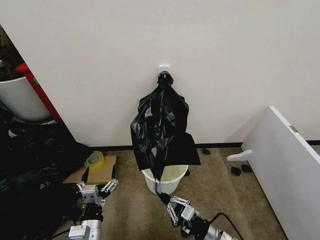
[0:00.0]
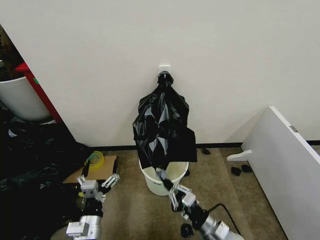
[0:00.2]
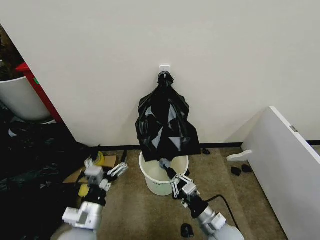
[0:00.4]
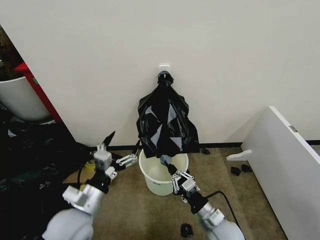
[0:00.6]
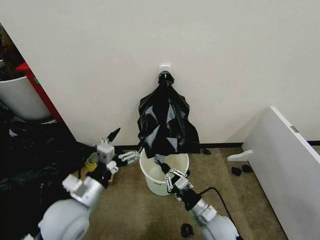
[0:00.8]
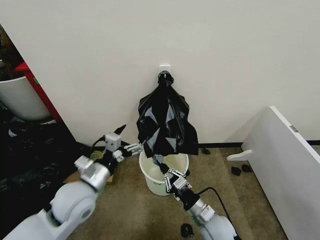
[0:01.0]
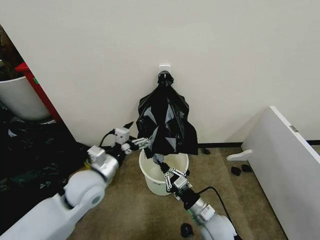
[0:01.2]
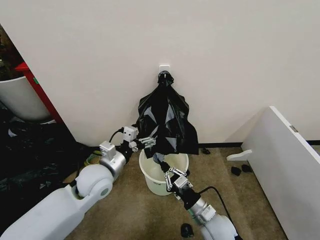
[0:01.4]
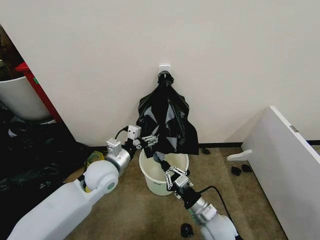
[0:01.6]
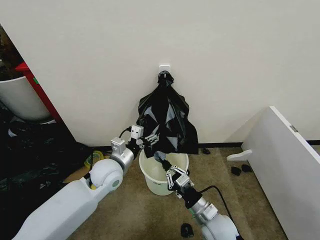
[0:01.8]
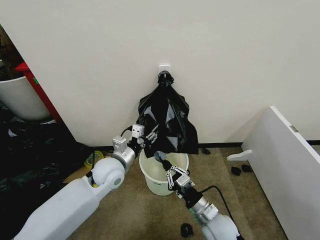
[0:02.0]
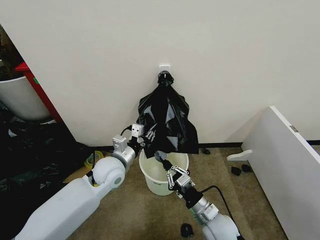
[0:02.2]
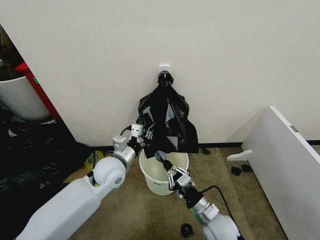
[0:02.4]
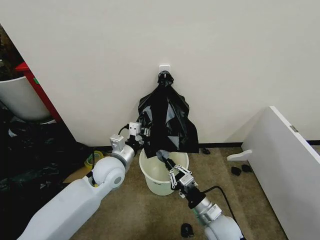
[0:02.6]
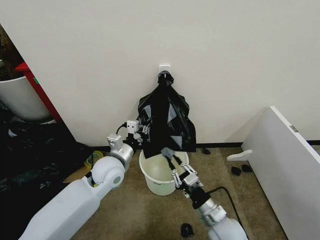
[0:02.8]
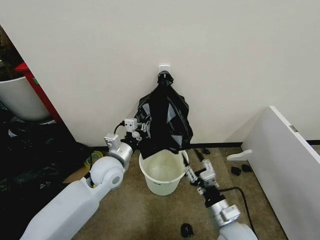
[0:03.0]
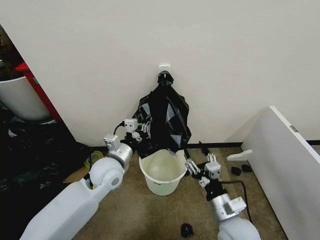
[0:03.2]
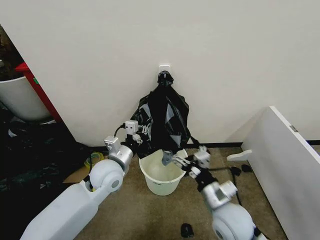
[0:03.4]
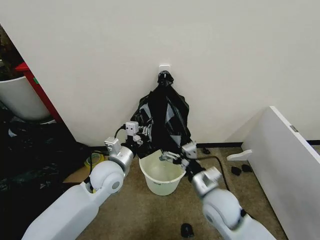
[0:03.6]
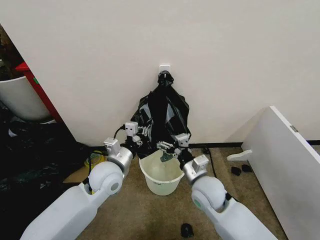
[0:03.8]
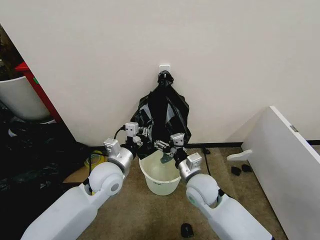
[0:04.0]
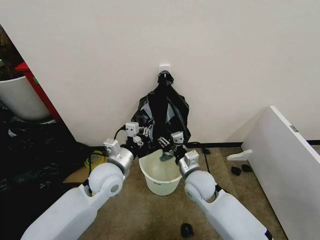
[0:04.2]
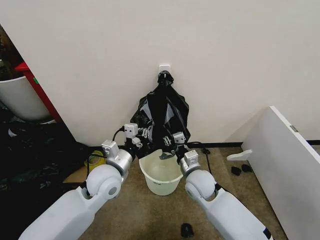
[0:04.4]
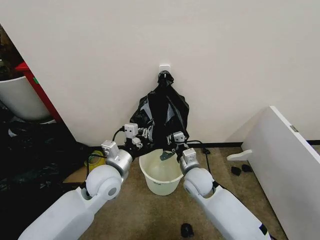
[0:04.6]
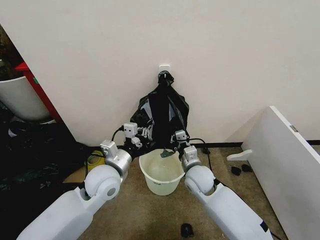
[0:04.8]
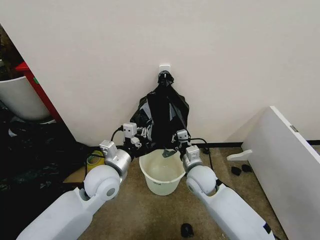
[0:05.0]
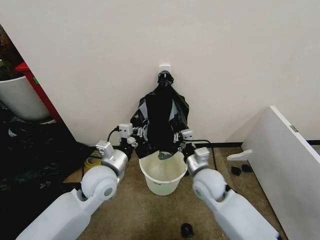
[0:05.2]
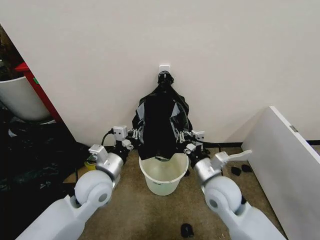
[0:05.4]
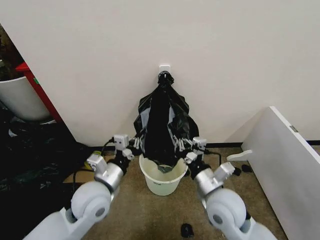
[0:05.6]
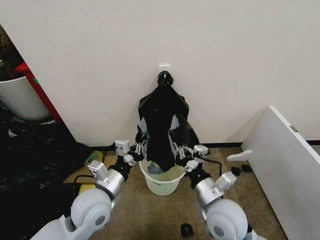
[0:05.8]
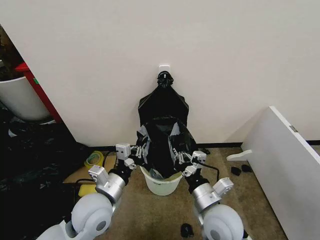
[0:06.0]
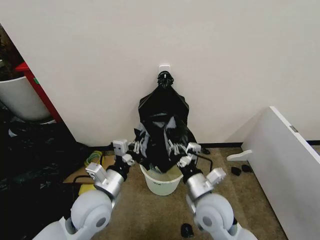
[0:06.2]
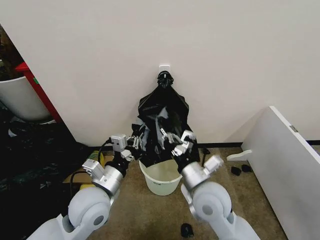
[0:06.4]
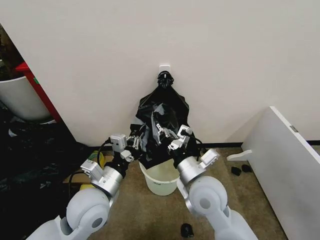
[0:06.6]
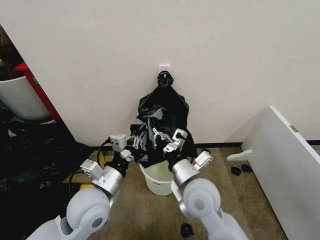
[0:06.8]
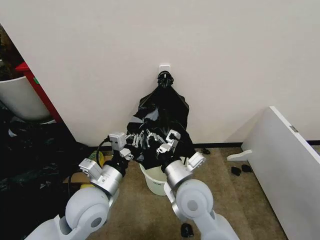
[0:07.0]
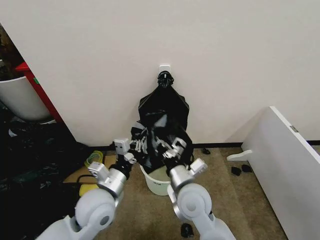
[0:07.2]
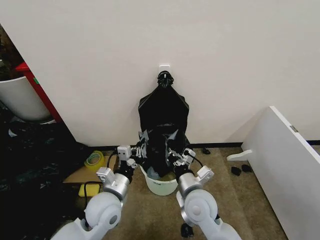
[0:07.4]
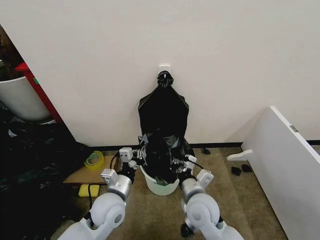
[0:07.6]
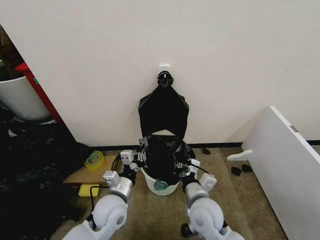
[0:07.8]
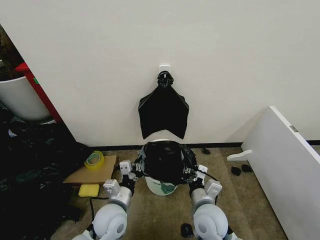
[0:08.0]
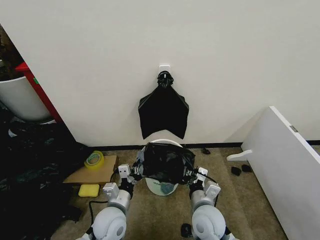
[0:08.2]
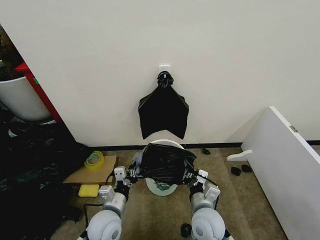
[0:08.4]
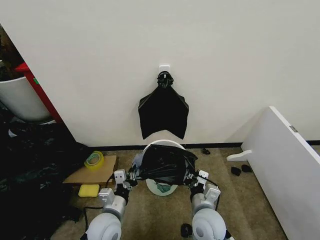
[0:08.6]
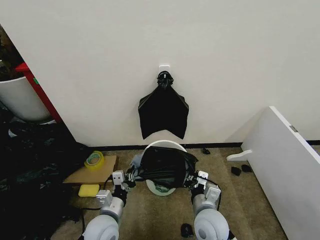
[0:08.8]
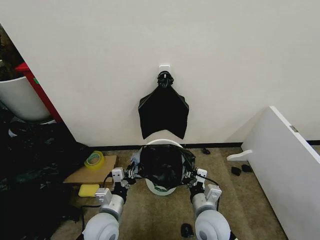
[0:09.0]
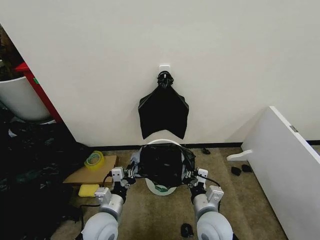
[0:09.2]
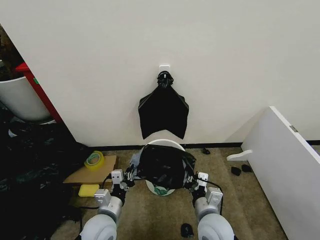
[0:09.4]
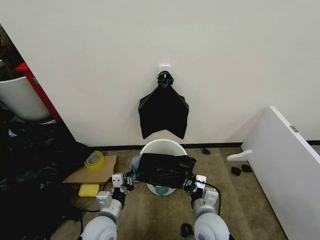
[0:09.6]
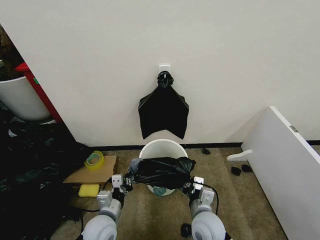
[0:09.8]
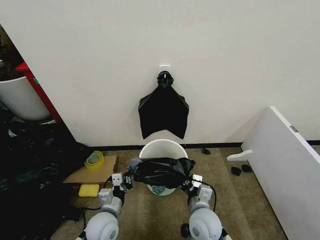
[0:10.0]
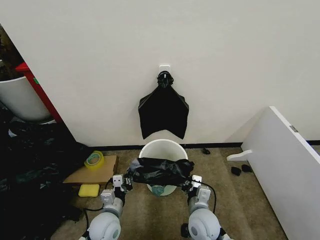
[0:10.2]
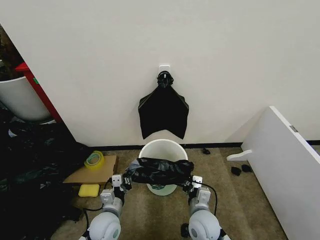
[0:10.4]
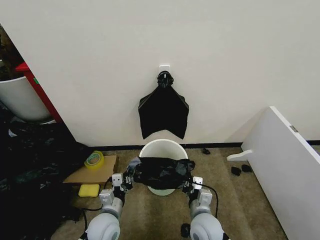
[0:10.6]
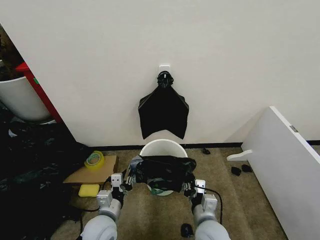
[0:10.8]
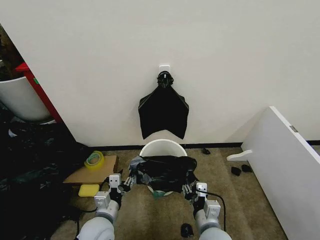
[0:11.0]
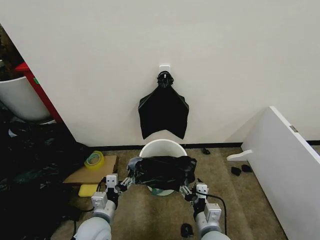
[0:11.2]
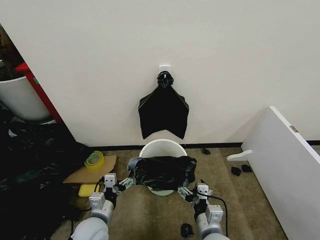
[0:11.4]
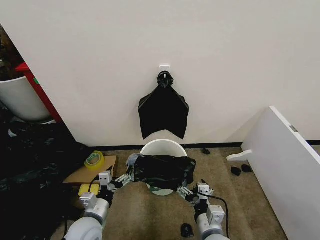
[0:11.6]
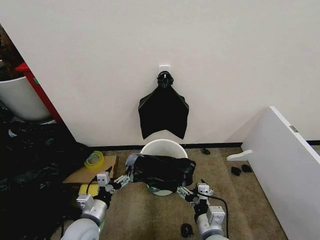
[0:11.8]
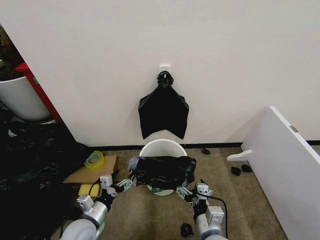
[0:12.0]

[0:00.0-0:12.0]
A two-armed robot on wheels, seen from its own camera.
Task of the whole recording: Place the garbage bag over the trash bin.
0:00.0 to 0:01.6: The right gripper is displaced forward by approximately 5 cm, while the left gripper travels forward and upward by some 25 cm.
0:01.6 to 0:03.0: The left gripper closes; the right gripper shifts by roughly 5 cm, and opens its fingers.
0:03.0 to 0:04.4: The right gripper heads forward and to the left, covering about 15 cm, and opens, then closes once more.
0:04.4 to 0:06.0: The left gripper travels backward by roughly 10 cm, while the right gripper heads backward, covering about 15 cm, and closes its fingers.
0:06.0 to 0:07.6: The left gripper shifts roughly 5 cm downward; the right gripper moves approximately 5 cm upward and comes back.
0:07.6 to 0:09.0: The left gripper moves some 5 cm. Meanwhile the right gripper shifts by approximately 5 cm.
0:09.0 to 0:10.4: The two grippers go some 5 cm downward.
0:10.4 to 0:12.0: The right gripper heads backward and upward, covering about 10 cm, and opens up, while the left gripper heads to the left, covering roughly 5 cm, and opens up.

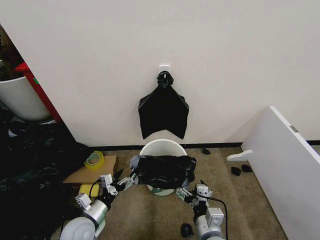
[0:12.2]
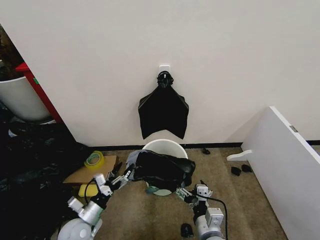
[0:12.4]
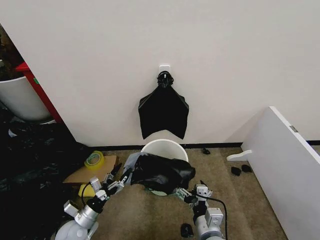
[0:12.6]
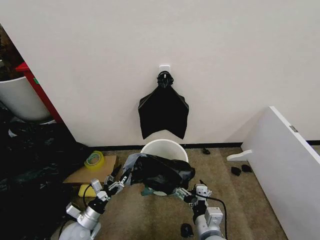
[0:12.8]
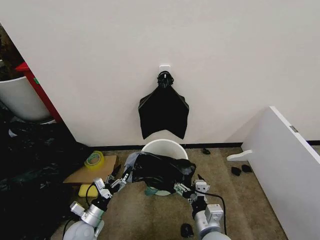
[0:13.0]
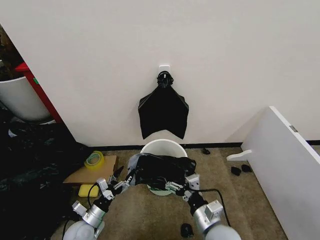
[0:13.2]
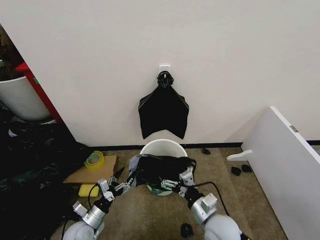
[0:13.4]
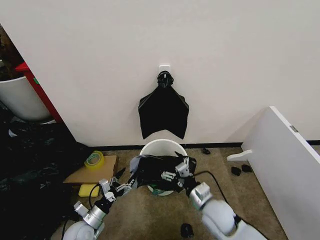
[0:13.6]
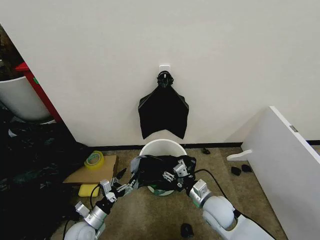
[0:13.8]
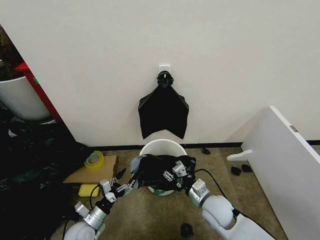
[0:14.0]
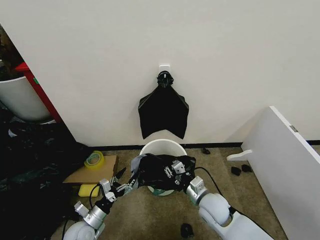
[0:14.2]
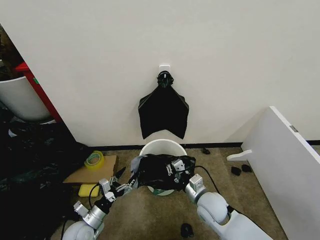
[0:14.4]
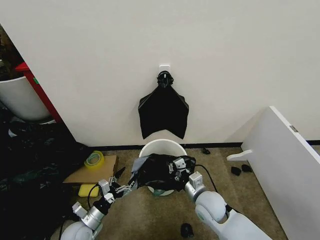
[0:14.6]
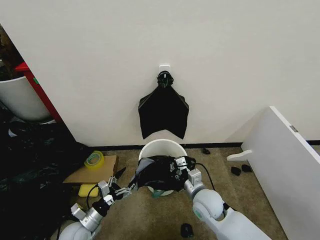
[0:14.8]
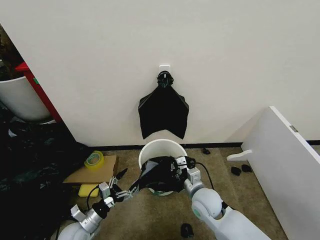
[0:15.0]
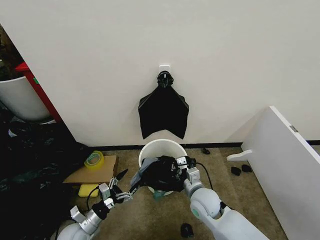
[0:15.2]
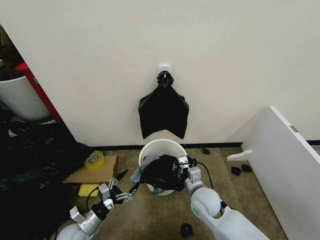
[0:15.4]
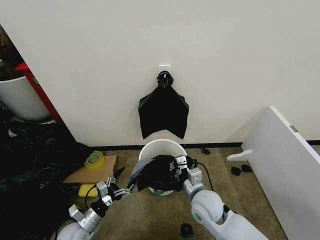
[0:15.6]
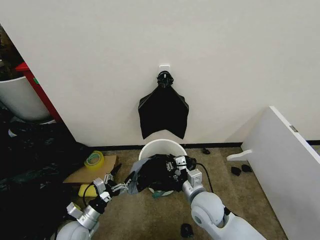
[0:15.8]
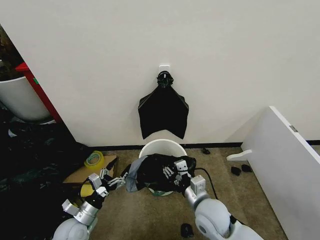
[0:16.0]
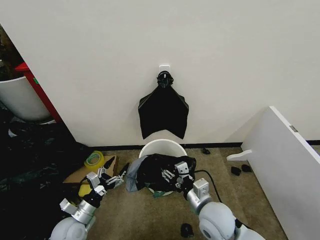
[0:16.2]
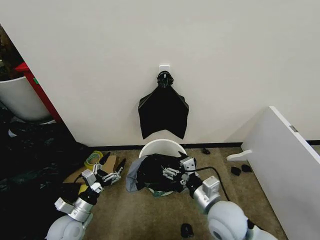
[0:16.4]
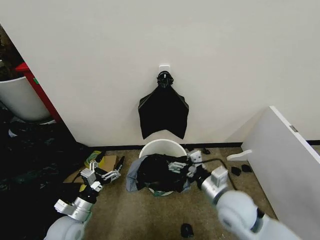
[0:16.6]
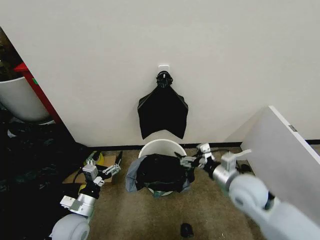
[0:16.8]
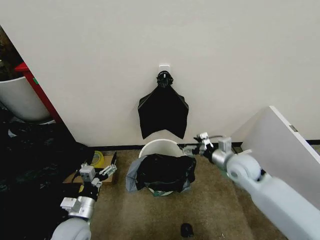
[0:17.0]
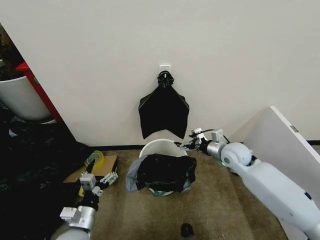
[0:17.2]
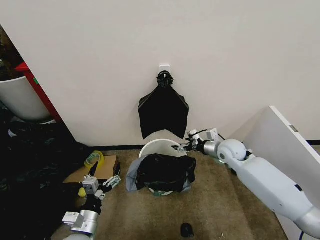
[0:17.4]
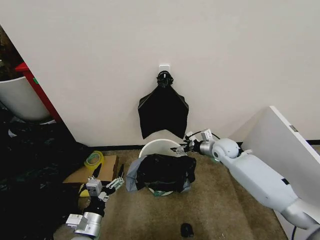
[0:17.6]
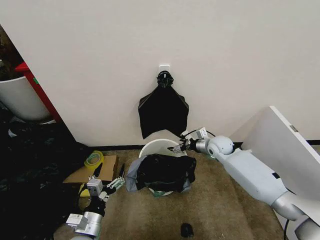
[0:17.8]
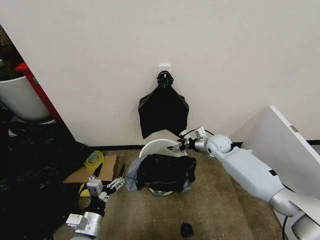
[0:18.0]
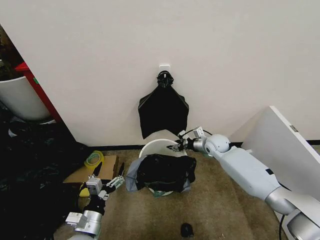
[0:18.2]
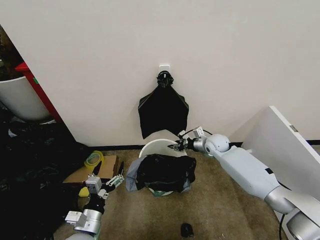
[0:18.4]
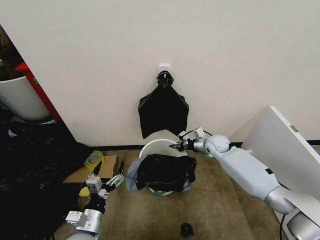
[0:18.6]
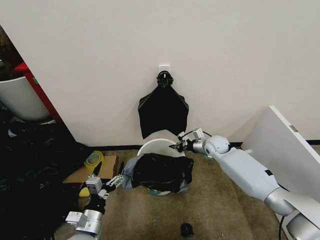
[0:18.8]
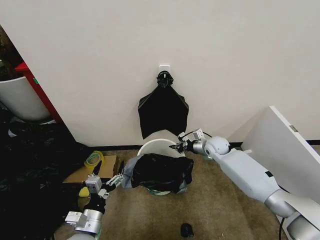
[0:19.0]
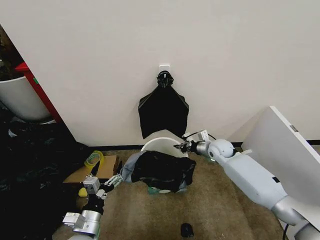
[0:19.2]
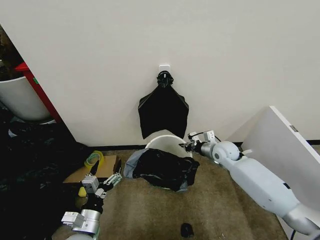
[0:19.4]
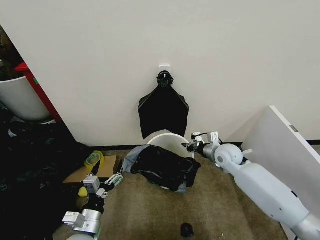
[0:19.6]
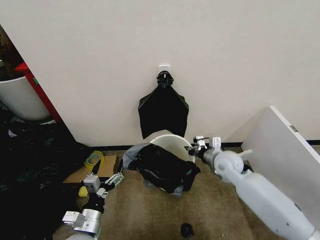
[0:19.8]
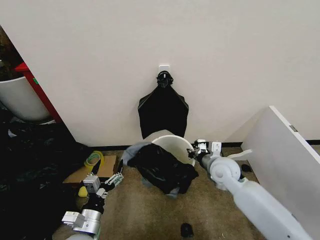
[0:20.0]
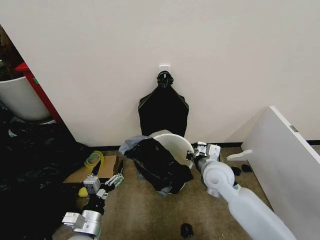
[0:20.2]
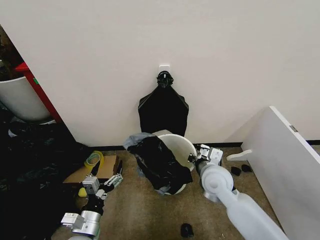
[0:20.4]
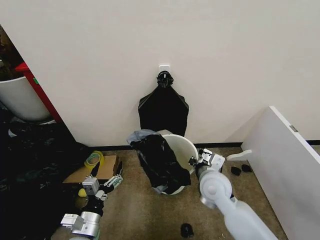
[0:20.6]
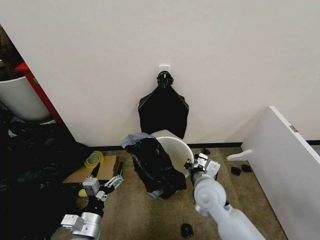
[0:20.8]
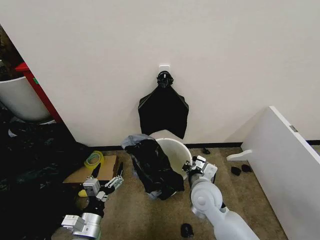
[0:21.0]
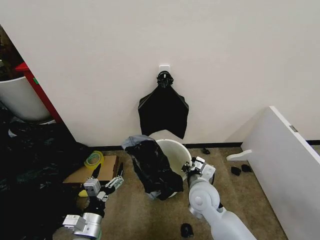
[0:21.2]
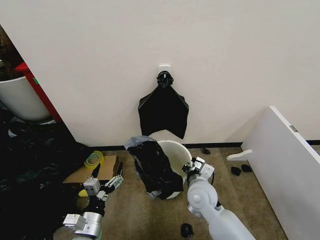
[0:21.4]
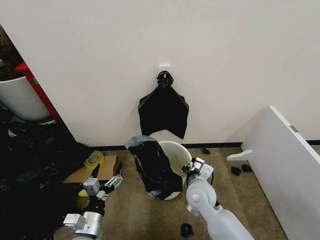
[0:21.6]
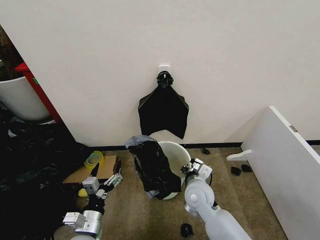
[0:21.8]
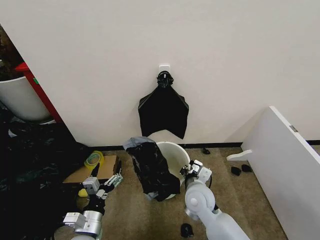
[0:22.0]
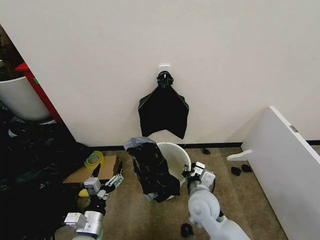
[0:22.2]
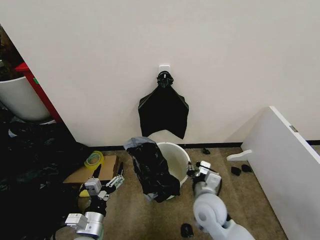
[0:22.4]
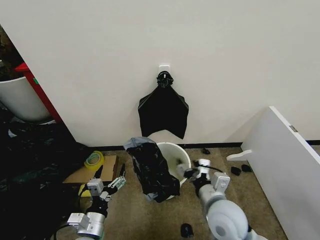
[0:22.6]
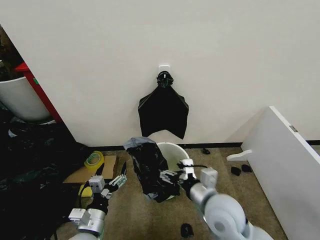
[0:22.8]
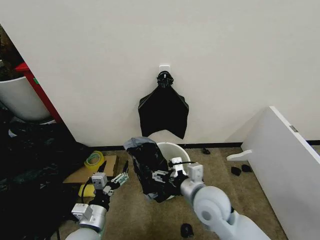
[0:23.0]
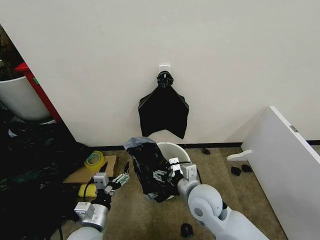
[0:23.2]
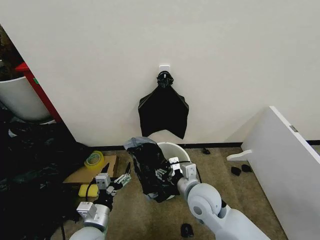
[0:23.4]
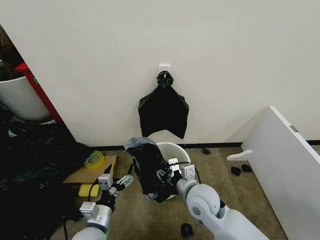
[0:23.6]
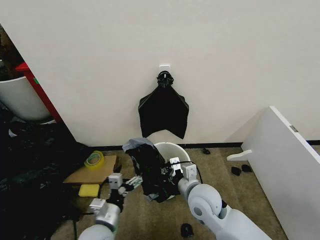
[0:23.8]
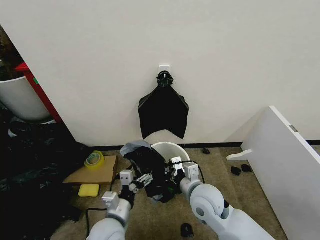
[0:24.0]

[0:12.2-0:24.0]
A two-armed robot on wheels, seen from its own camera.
Task of the whole recording: Place the garbage bag over the trash bin.
0:12.2 to 0:13.6: The right gripper travels forward by approximately 10 cm; the left gripper moves downward, some 5 cm.
0:13.6 to 0:15.2: The right gripper closes.
0:15.2 to 0:16.6: The right gripper is displaced upward and to the right by about 10 cm, and opens up, while the left gripper is displaced upward by about 5 cm.
0:16.6 to 0:18.2: The left gripper shifts approximately 10 cm to the right and backward. Meanwhile the right gripper goes some 25 cm forward, and closes up.
0:18.2 to 0:19.6: The right gripper shifts roughly 10 cm backward, and closes up.
0:19.6 to 0:21.0: The right gripper goes approximately 20 cm backward and to the left.
0:21.0 to 0:22.6: The right gripper travels backward by approximately 5 cm, and opens up.
0:22.6 to 0:24.0: The right gripper moves forward, approximately 5 cm, and closes up, while the left gripper heads to the right, covering approximately 5 cm.
